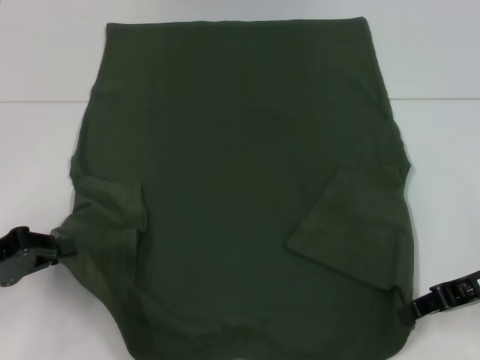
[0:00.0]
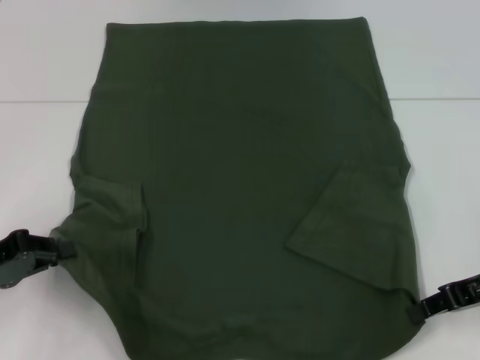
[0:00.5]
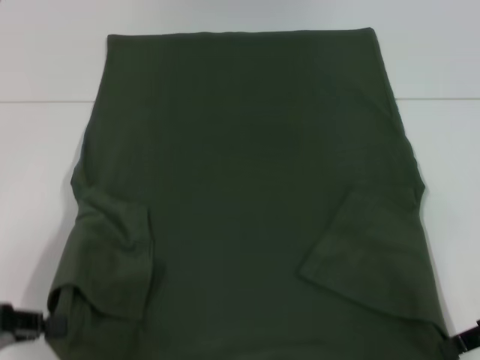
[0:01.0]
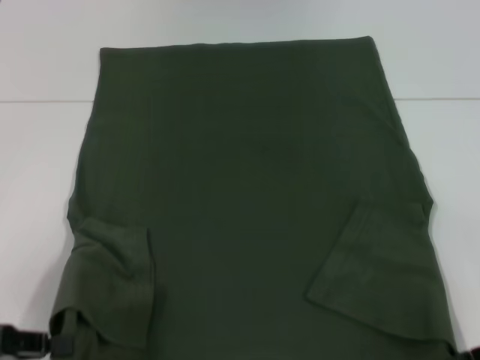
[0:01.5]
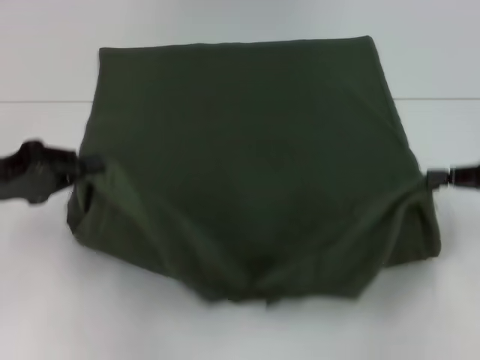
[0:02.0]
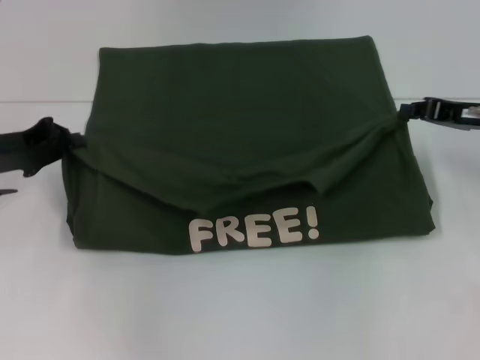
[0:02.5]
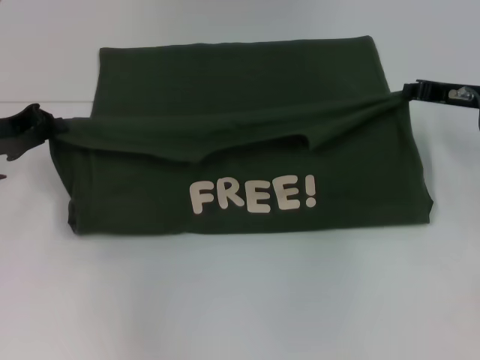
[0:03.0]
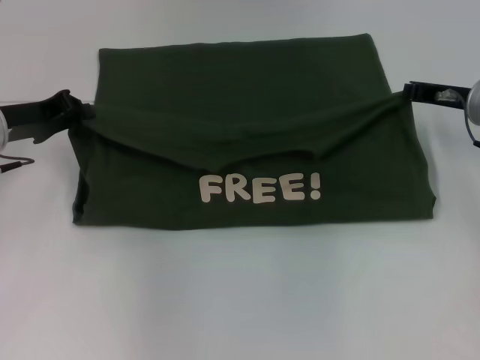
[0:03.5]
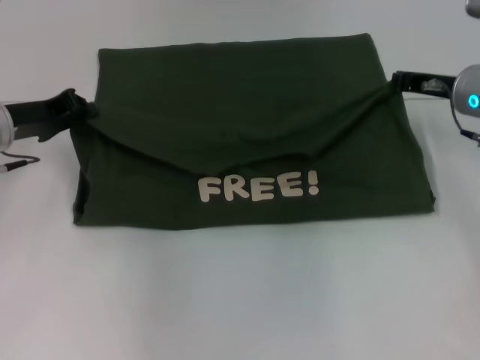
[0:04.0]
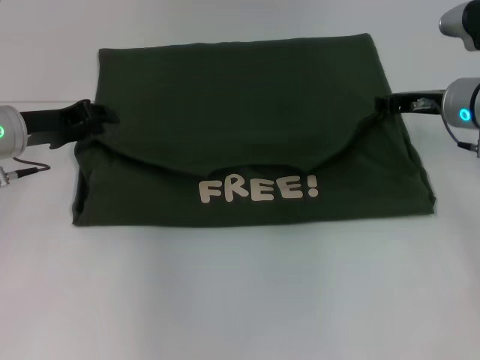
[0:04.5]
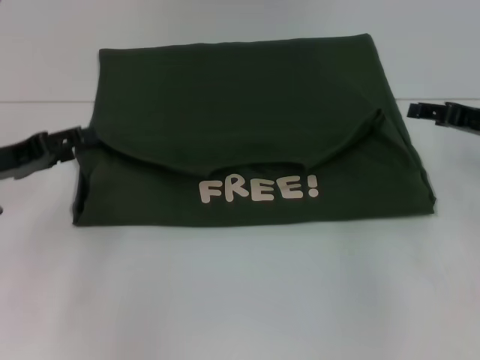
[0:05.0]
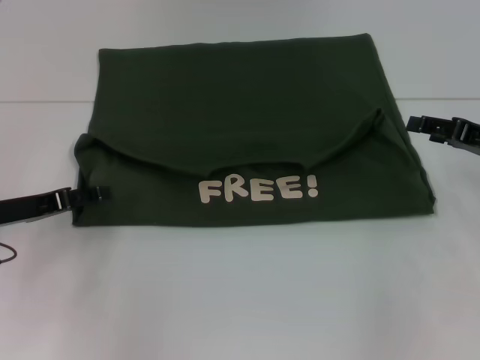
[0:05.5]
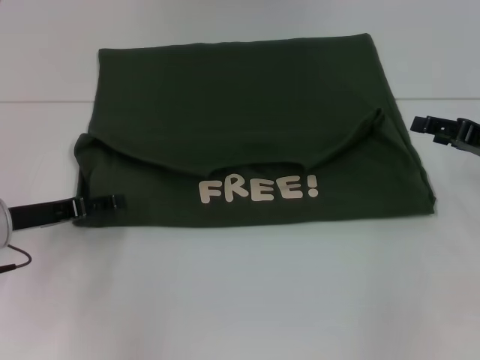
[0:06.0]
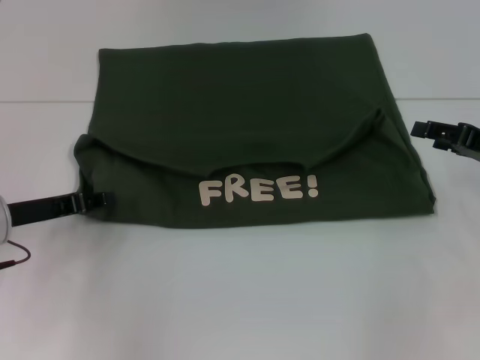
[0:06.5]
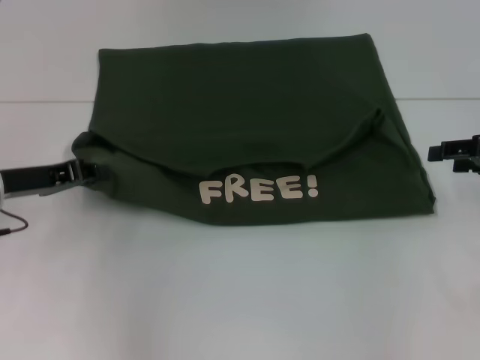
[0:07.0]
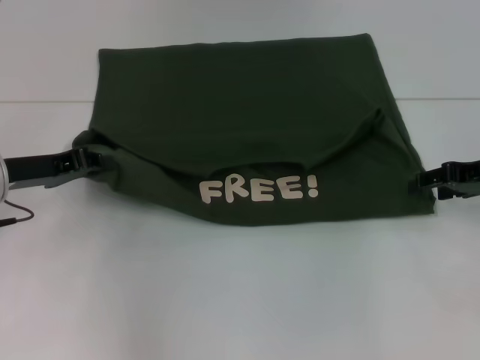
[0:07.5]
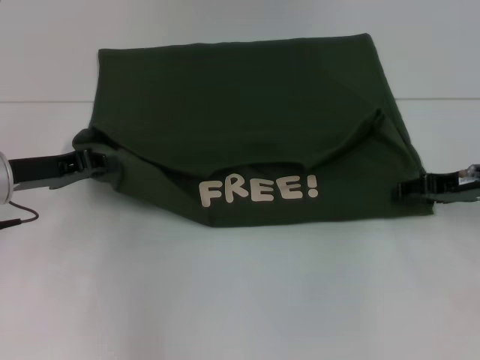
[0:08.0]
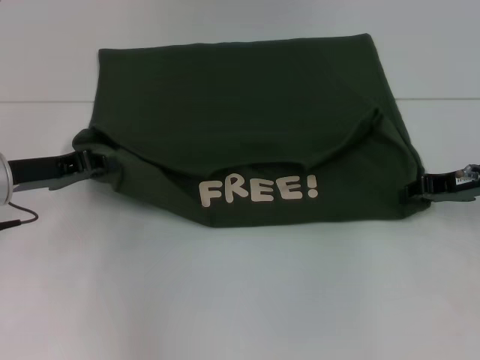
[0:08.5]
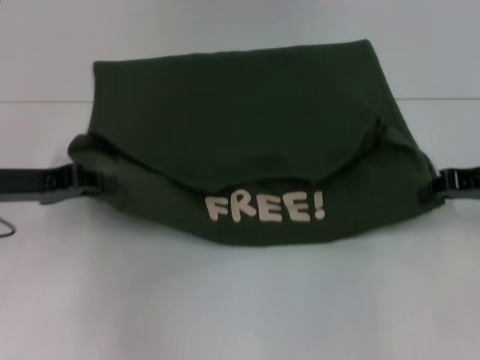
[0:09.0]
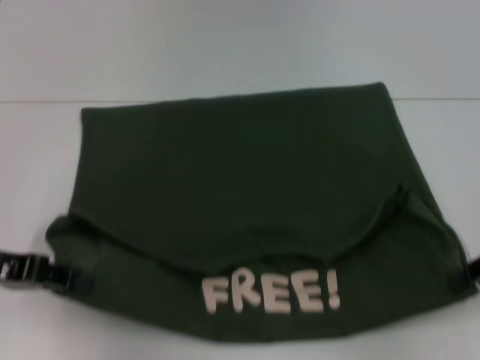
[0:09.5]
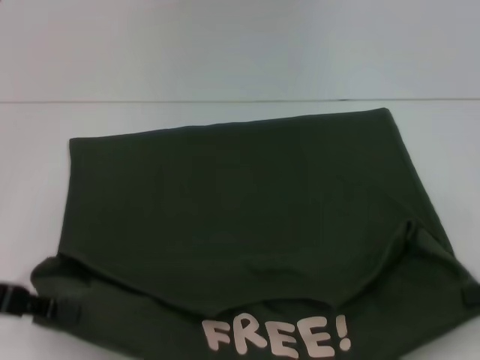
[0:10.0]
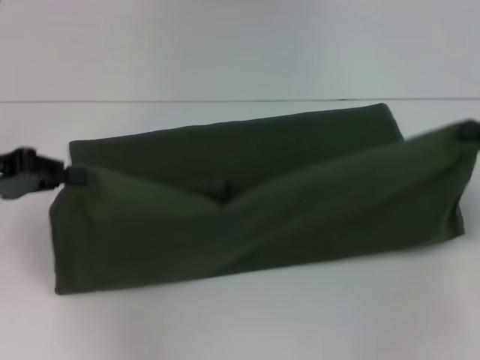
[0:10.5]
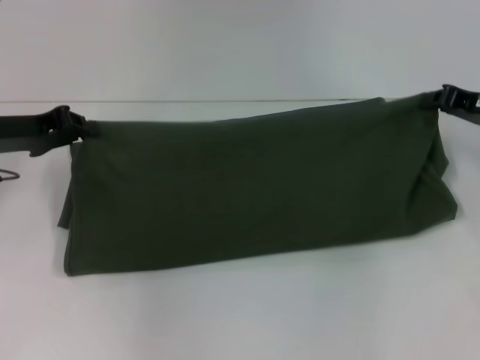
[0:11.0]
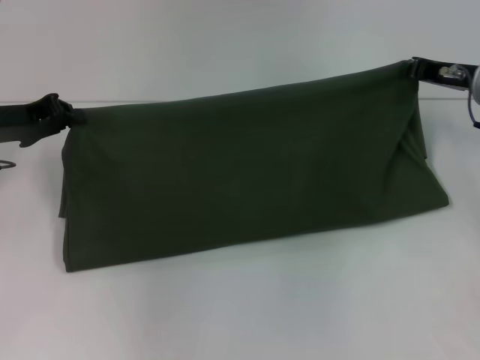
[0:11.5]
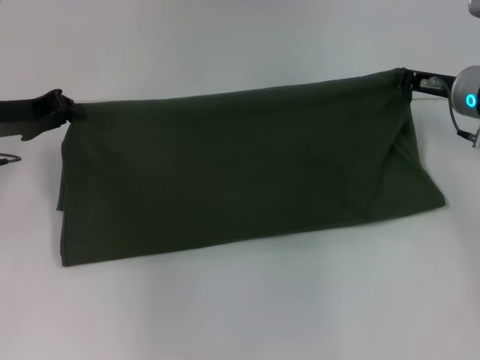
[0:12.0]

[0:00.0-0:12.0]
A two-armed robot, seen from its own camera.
Step, 0.0 to 4.5 s: Fold the clothes with your left hand.
Step, 0.0 to 4.5 s: Fold the clothes with your right hand.
Step, 5.0 to 10.0 s: Pull the clothes with your left hand.
Step, 5.0 to 10.0 s: Pull the clothes with your right hand.
0.0 to 2.0 s: The right gripper heads to the right, covering roughly 5 cm; the left gripper ends up some 5 cm from where it was.
2.0 to 4.0 s: The left gripper goes roughly 10 cm forward; the right gripper heads forward and to the left, covering some 15 cm.
4.0 to 6.0 s: The left gripper travels backward and downward by about 10 cm, and opens. Meanwhile the right gripper is displaced backward and to the right by some 10 cm, and opens.
6.0 to 8.0 s: The left gripper closes.
8.0 to 10.0 s: The left gripper moves backward, approximately 10 cm. Meanwhile the right gripper travels backward and to the right by approximately 15 cm, and closes its fingers.
10.0 to 12.0 s: The left gripper is displaced forward by some 15 cm, while the right gripper goes some 20 cm forward and to the left.

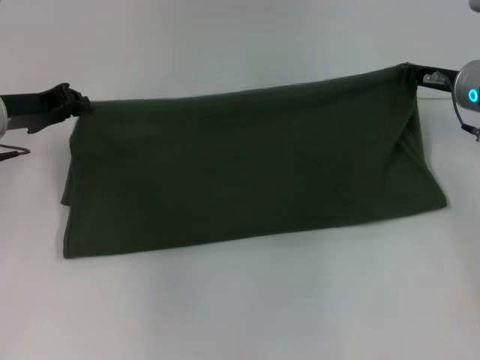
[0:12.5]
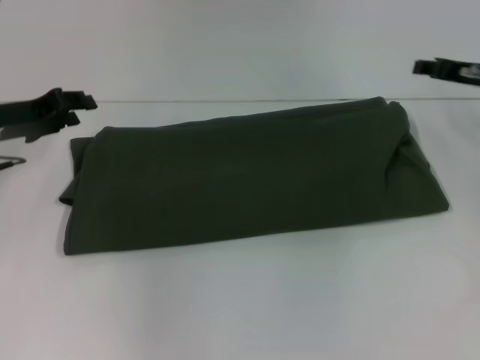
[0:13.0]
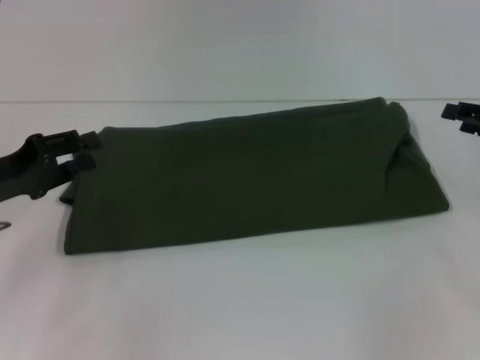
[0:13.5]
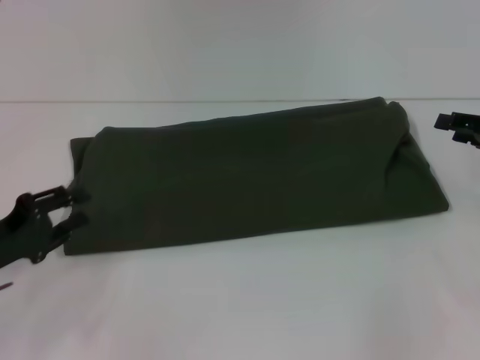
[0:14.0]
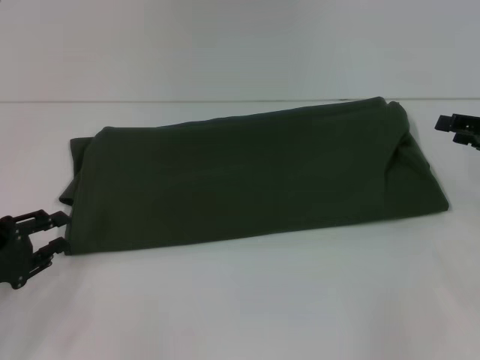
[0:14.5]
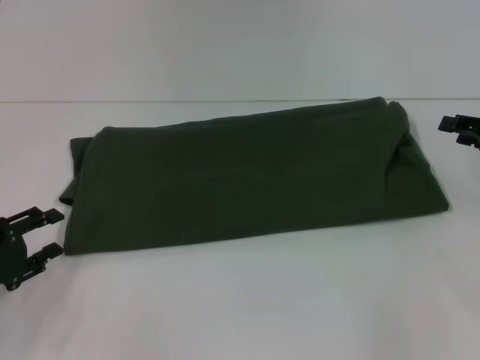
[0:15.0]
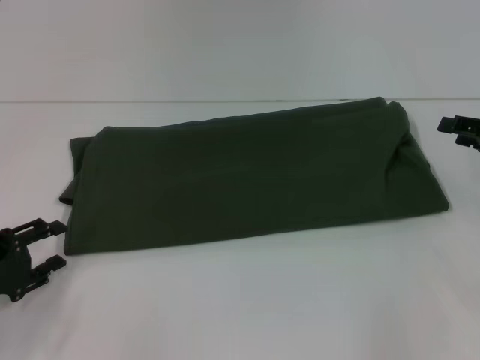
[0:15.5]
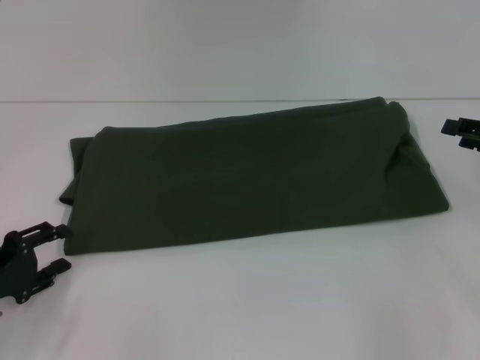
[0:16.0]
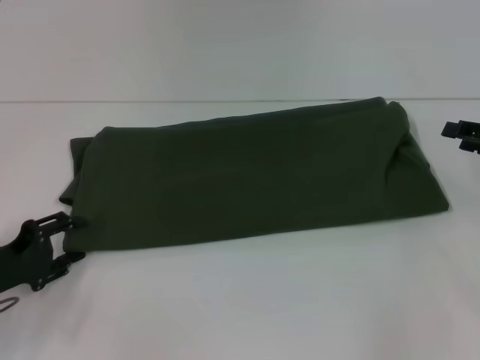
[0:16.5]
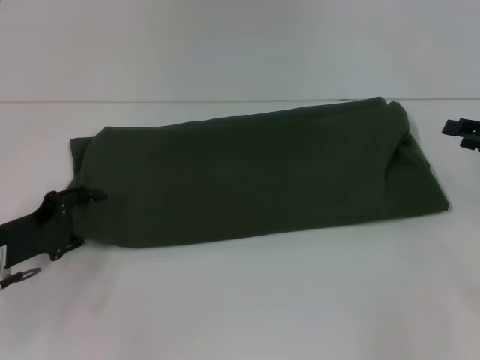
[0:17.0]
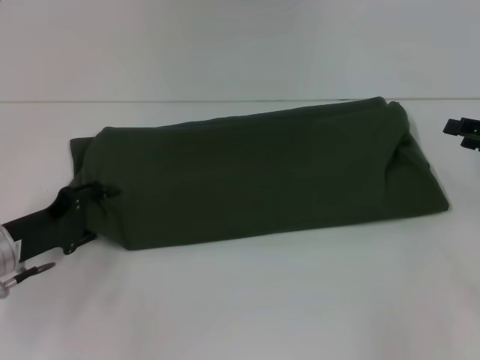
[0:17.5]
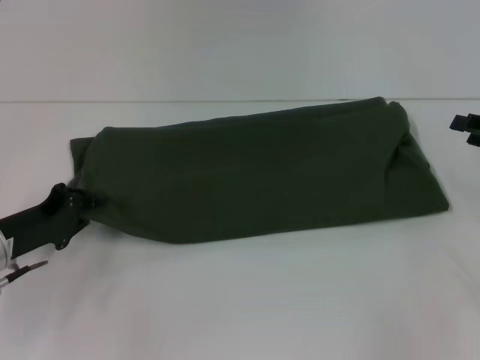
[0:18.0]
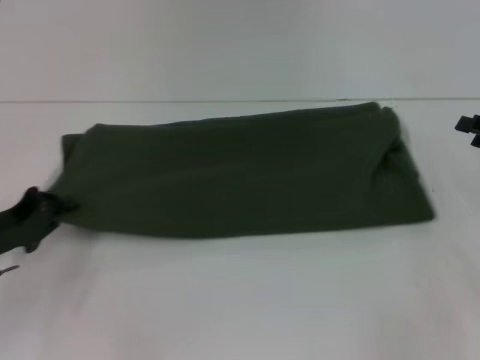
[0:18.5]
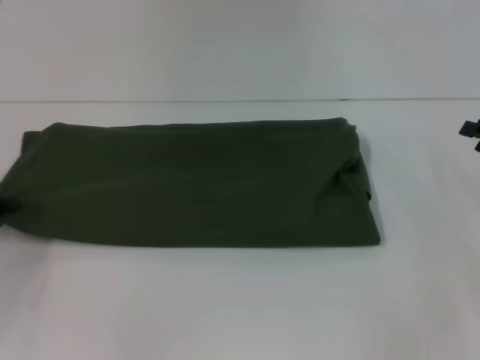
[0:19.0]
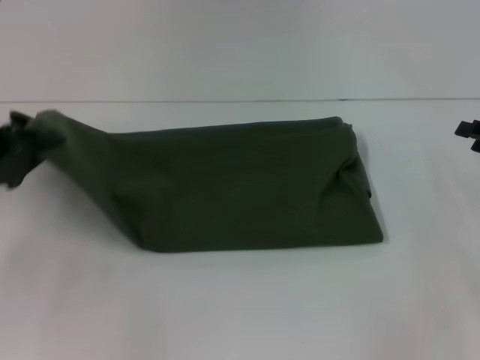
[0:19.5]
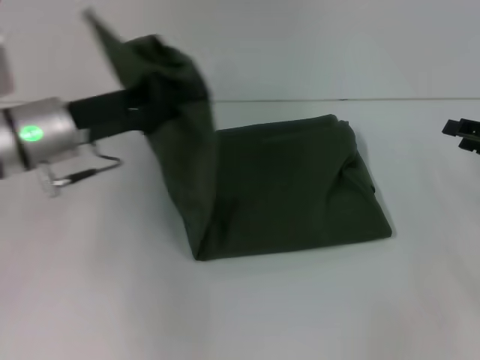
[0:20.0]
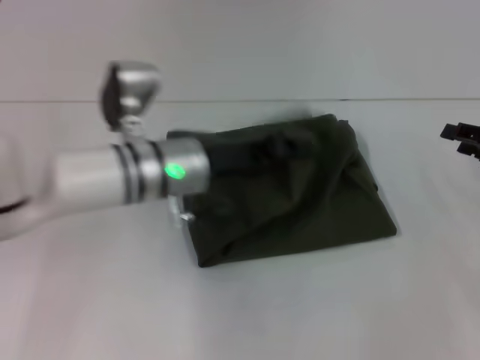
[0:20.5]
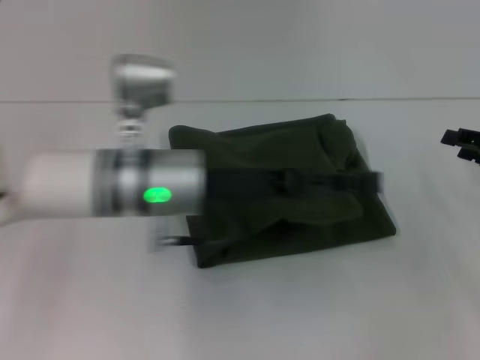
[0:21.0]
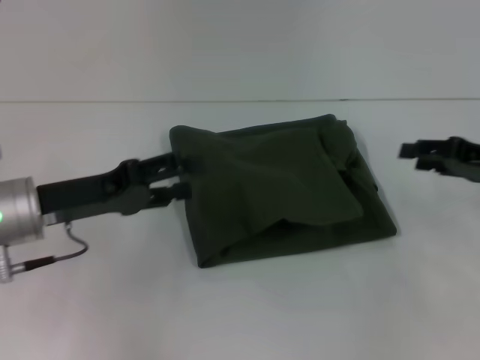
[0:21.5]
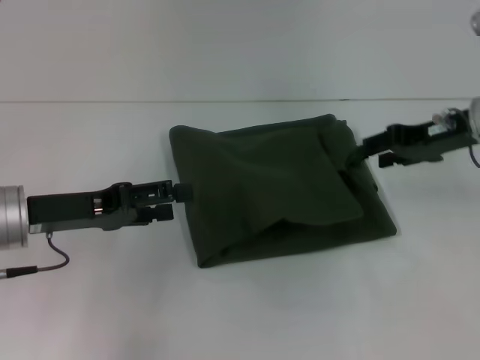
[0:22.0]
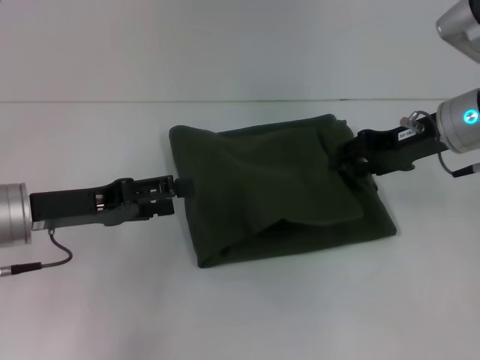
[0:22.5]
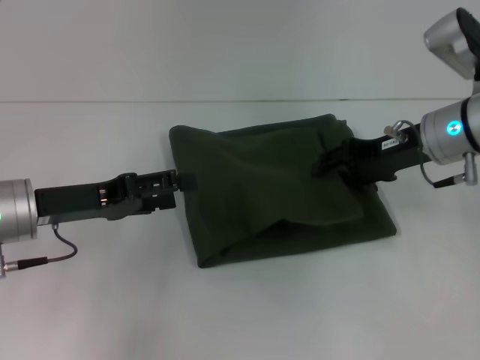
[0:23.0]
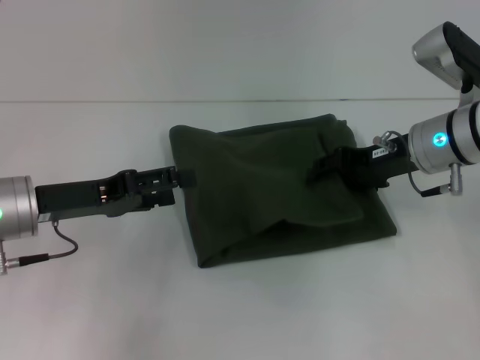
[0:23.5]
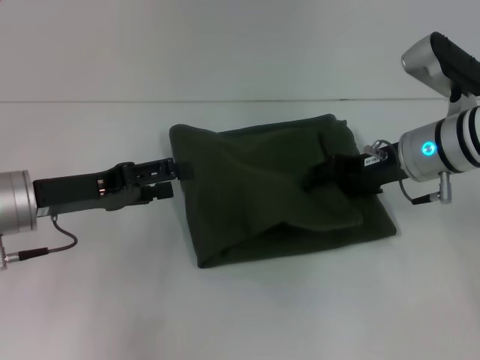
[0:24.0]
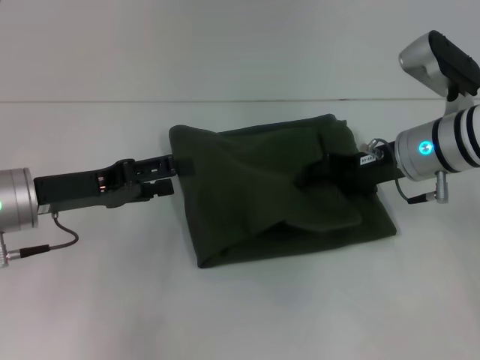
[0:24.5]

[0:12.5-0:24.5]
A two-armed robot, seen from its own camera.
Step, 12.5 to 21.0 s: Fold the clothes with your left hand.
12.5 to 14.5 s: The right gripper shifts about 15 cm to the right and backward, and opens its fingers, while the left gripper travels backward and downward by about 20 cm, and opens its fingers.
14.5 to 16.5 s: The grippers make only small movements.
16.5 to 18.5 s: The left gripper closes up.
18.5 to 20.5 s: The left gripper goes about 20 cm to the right.
20.5 to 22.5 s: The left gripper is displaced to the left and backward by about 15 cm, and opens its fingers. Meanwhile the right gripper is displaced to the left, forward and upward by approximately 15 cm.
22.5 to 24.5 s: The grippers stay close to where they were, moving slightly.

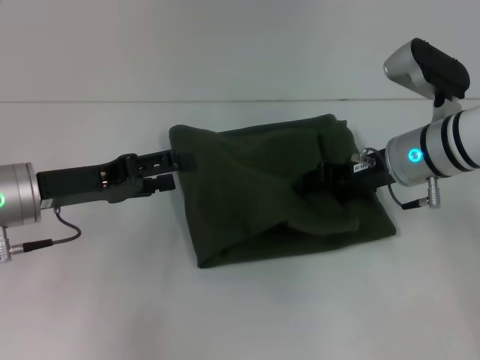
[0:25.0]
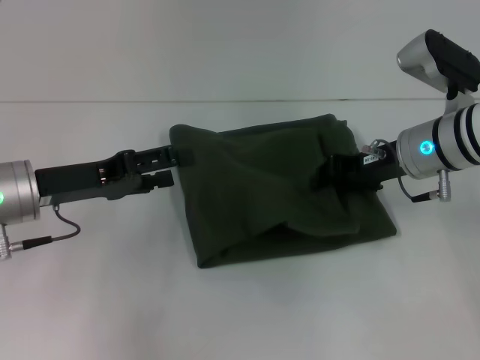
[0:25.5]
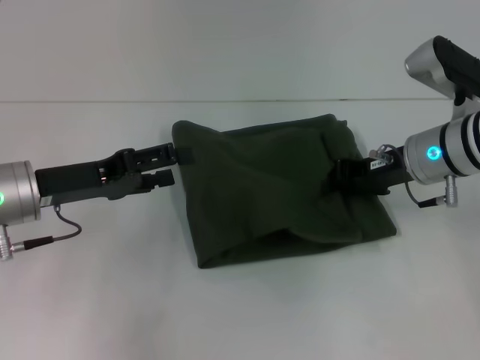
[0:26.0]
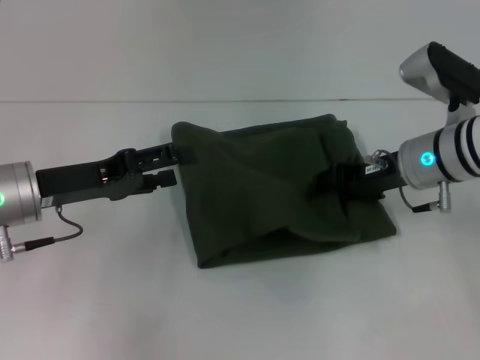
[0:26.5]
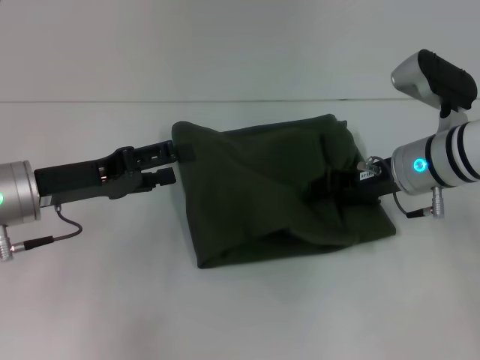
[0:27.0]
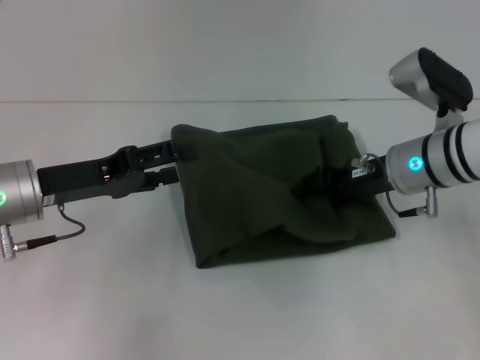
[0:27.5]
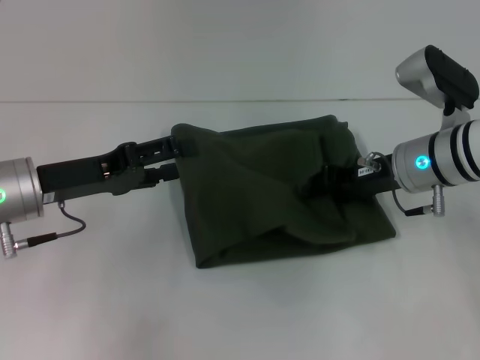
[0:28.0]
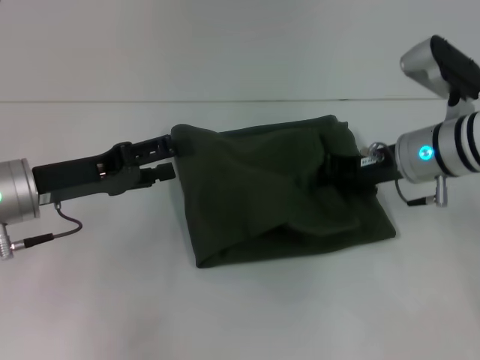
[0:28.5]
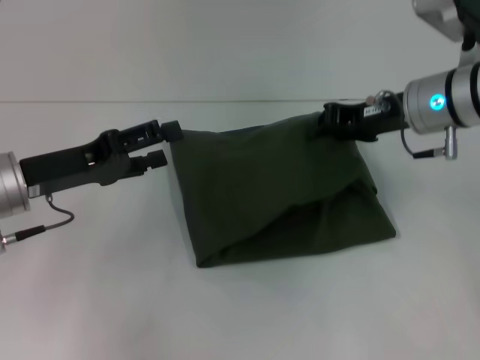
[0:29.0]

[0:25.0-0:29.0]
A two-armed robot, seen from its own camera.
25.0 to 27.0 s: The right gripper closes and opens again.
27.0 to 29.0 s: The right gripper shifts approximately 5 cm upward, and closes its fingers.
